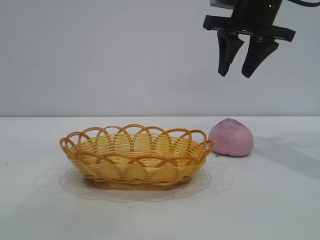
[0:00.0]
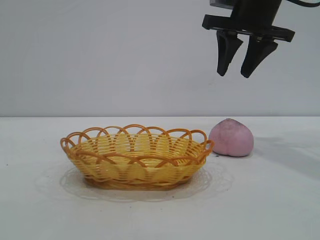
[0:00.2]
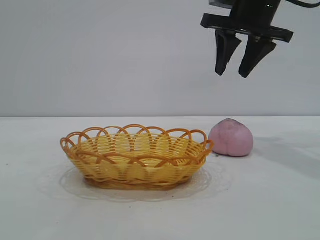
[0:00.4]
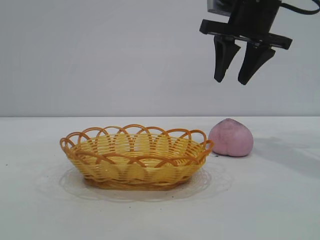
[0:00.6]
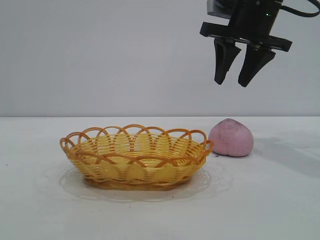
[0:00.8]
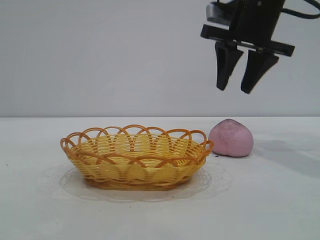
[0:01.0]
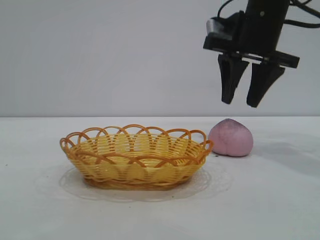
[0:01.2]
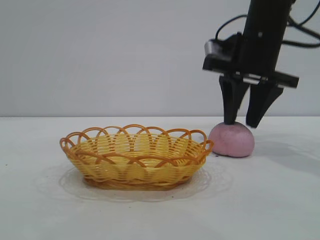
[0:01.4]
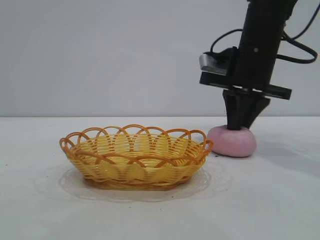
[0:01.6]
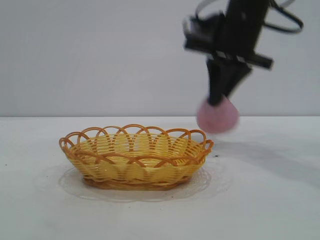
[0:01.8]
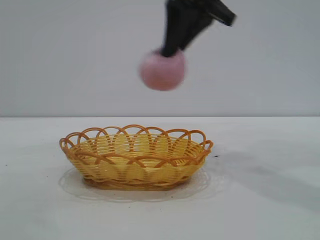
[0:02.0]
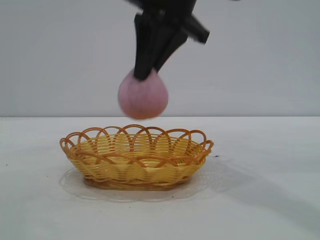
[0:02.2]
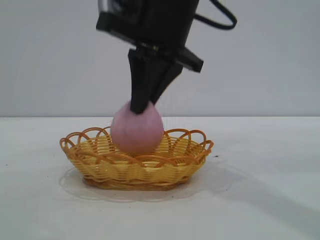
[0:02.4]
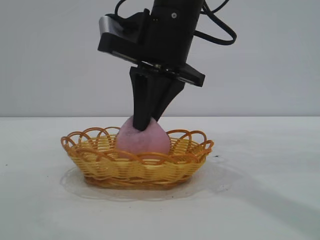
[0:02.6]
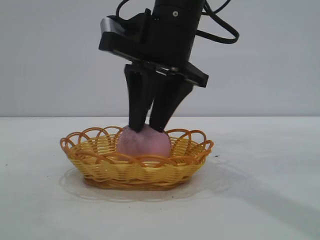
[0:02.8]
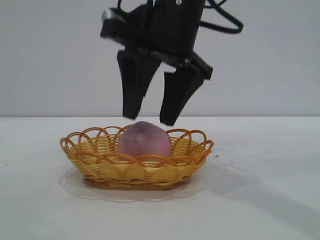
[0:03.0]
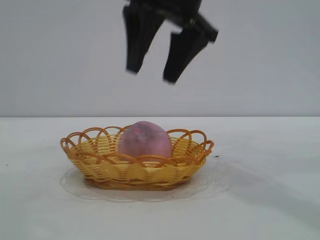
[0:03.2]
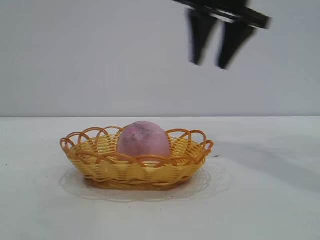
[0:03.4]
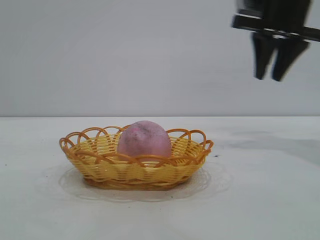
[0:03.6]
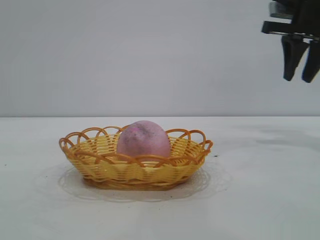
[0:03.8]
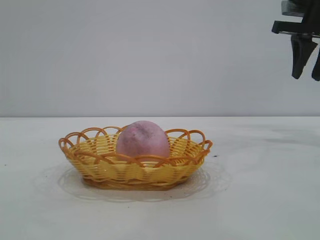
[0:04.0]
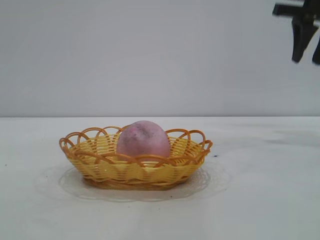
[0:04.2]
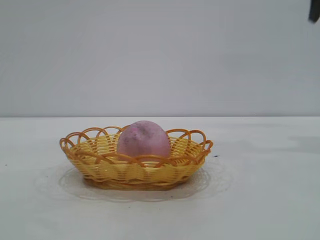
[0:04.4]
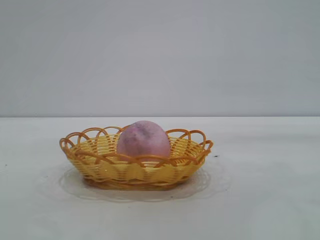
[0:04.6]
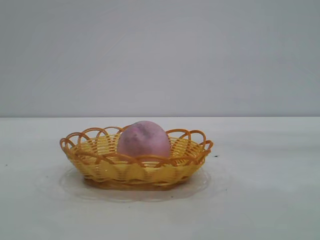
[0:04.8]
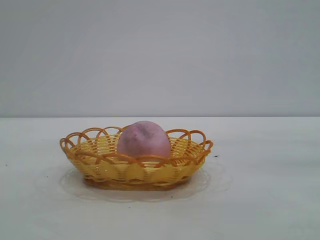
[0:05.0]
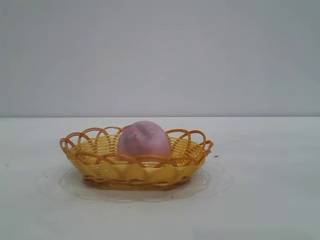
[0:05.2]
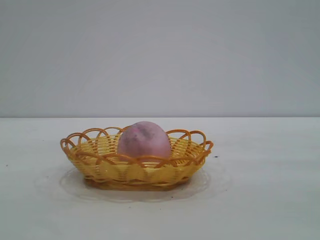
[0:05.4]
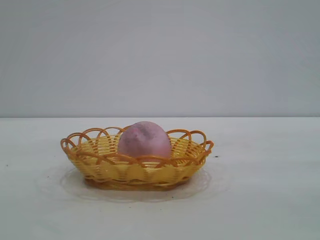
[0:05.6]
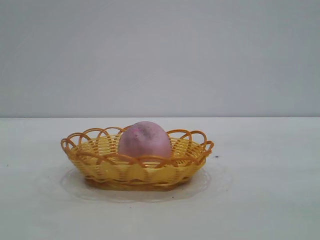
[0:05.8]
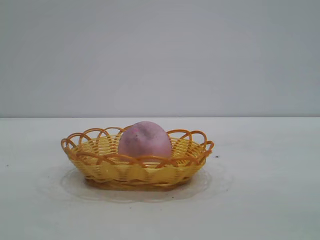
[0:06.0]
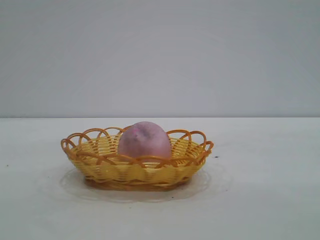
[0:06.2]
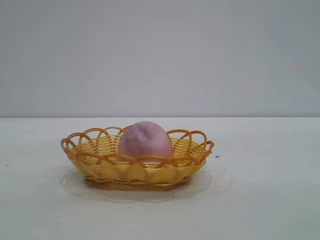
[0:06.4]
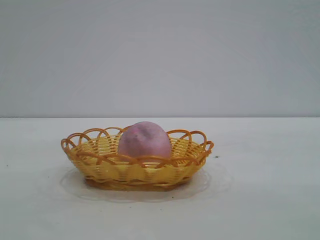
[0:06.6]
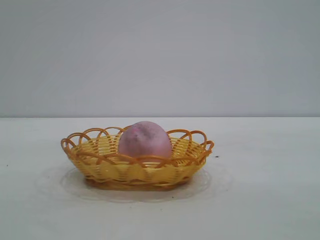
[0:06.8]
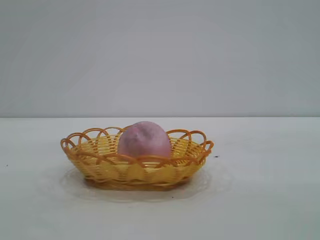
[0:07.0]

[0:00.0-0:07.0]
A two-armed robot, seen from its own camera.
Task of the whole recording: pick up the peach and put it into the basket.
Step, 0:00.0 to 0:01.6: Pick up the peach.
Step, 0:02.0 to 0:03.0: place the peach into the basket.

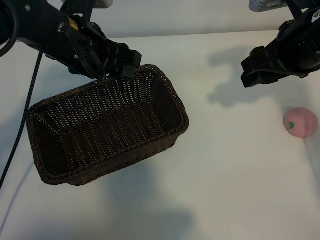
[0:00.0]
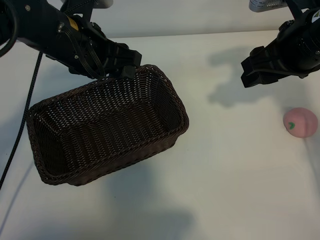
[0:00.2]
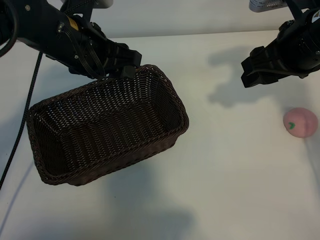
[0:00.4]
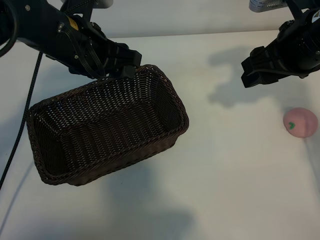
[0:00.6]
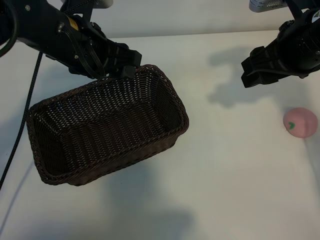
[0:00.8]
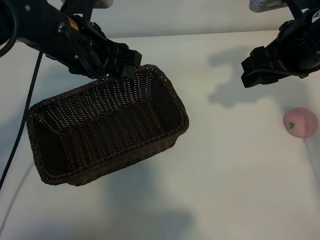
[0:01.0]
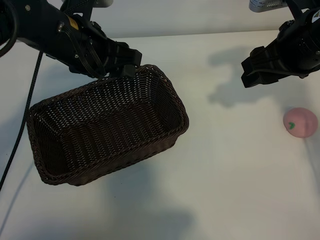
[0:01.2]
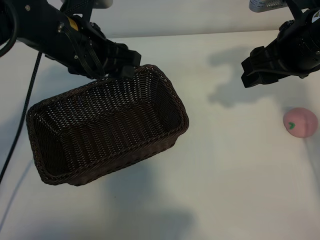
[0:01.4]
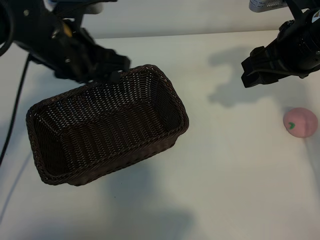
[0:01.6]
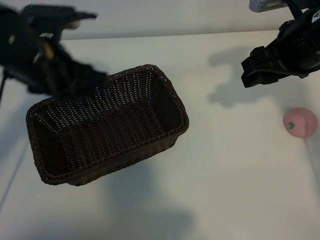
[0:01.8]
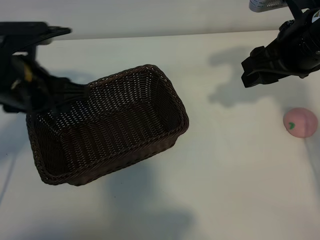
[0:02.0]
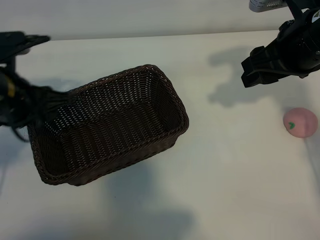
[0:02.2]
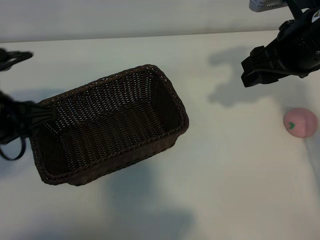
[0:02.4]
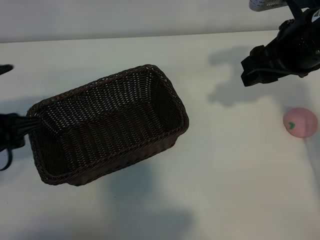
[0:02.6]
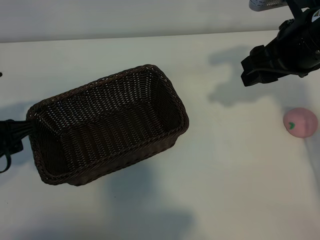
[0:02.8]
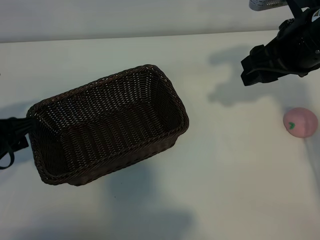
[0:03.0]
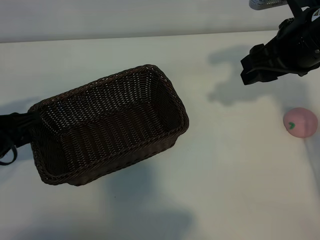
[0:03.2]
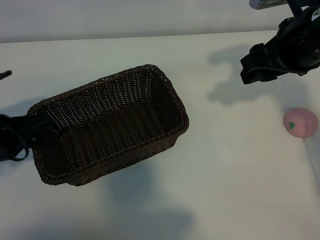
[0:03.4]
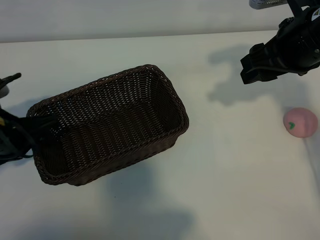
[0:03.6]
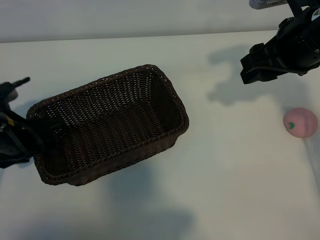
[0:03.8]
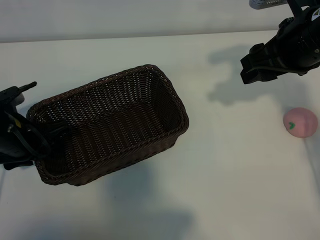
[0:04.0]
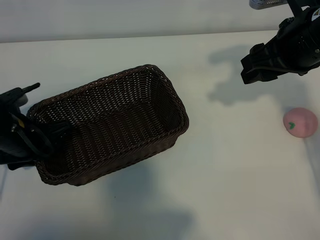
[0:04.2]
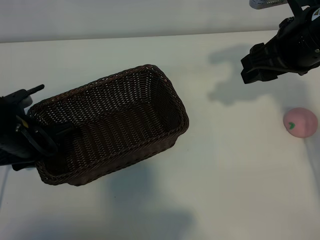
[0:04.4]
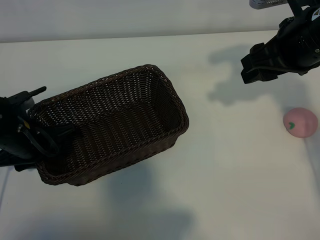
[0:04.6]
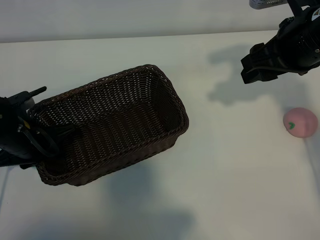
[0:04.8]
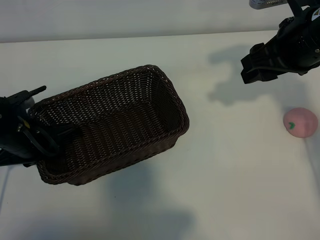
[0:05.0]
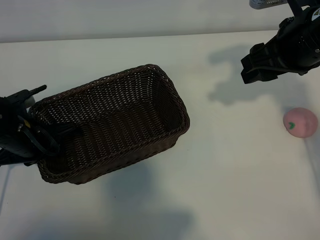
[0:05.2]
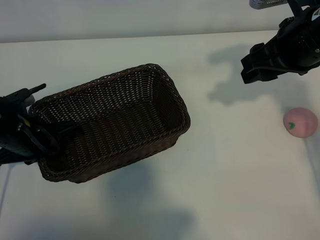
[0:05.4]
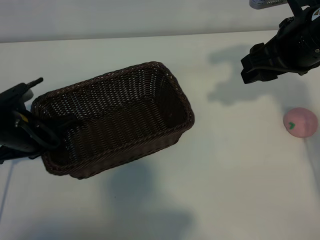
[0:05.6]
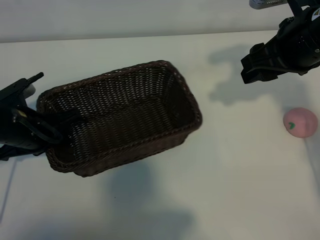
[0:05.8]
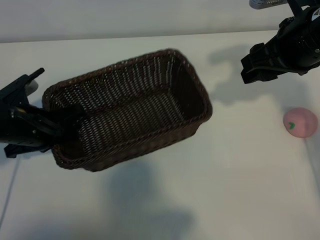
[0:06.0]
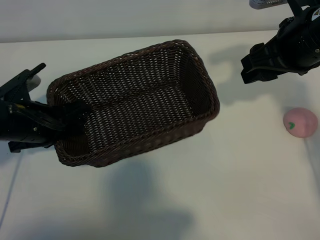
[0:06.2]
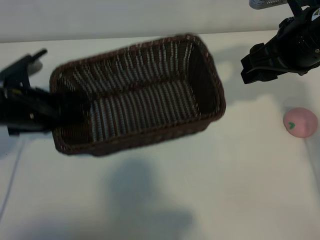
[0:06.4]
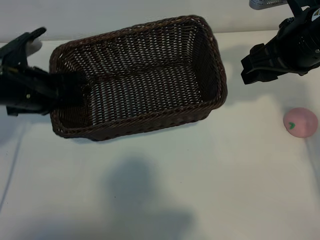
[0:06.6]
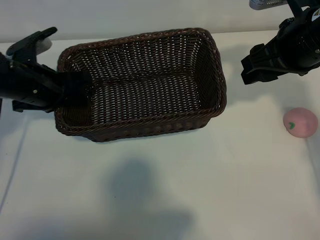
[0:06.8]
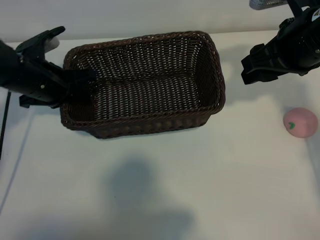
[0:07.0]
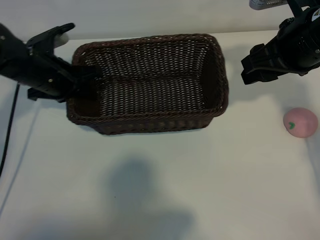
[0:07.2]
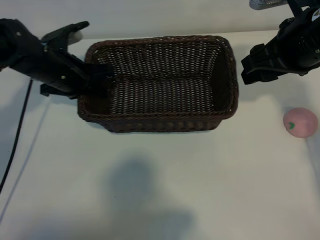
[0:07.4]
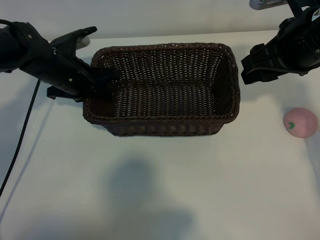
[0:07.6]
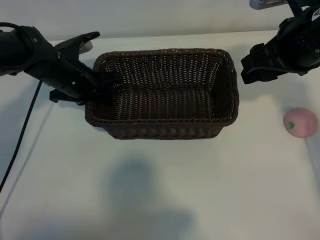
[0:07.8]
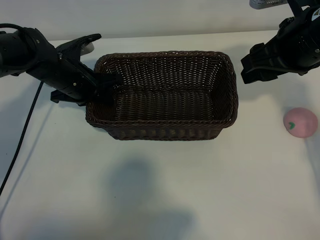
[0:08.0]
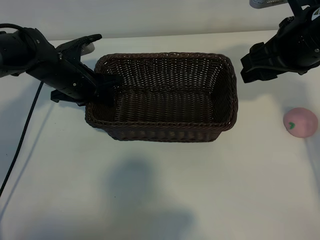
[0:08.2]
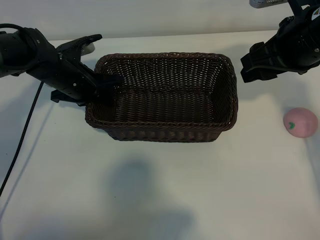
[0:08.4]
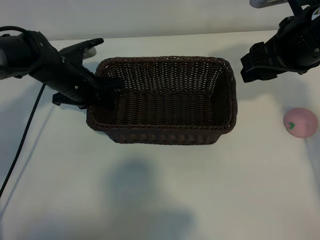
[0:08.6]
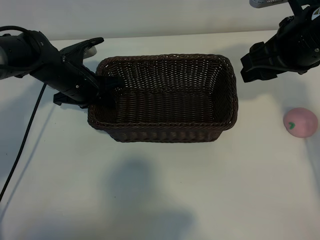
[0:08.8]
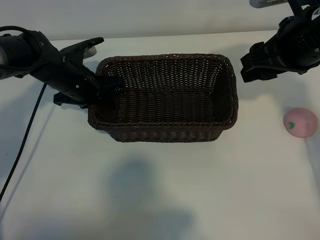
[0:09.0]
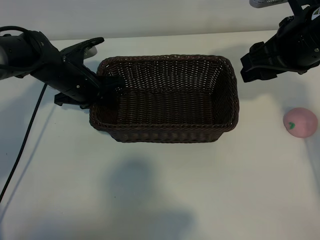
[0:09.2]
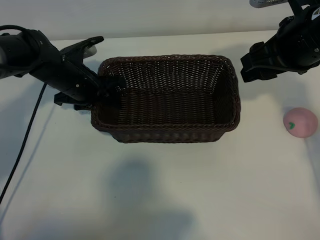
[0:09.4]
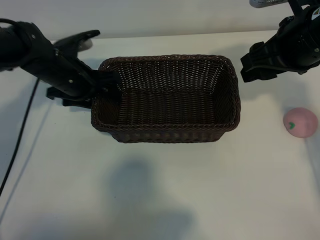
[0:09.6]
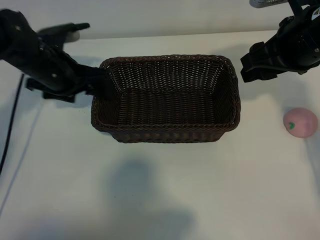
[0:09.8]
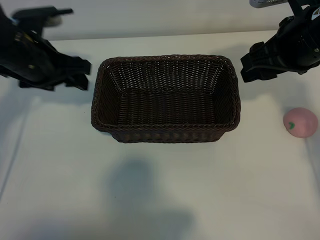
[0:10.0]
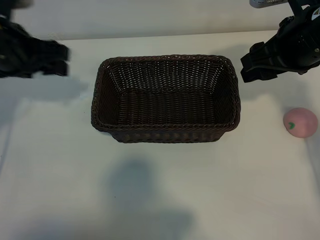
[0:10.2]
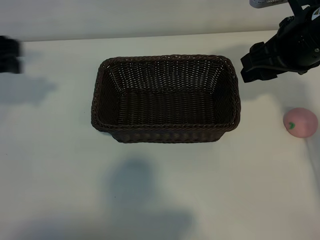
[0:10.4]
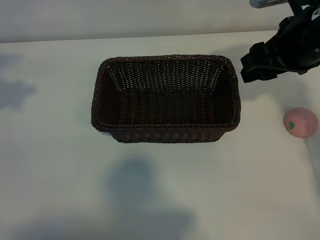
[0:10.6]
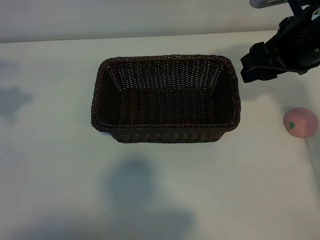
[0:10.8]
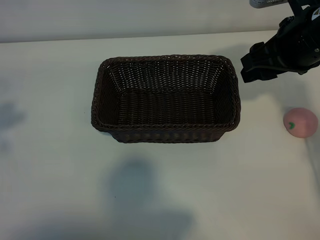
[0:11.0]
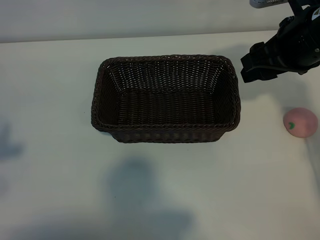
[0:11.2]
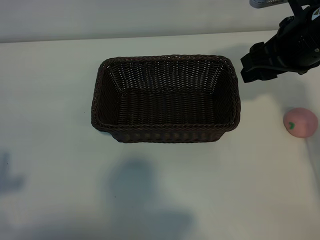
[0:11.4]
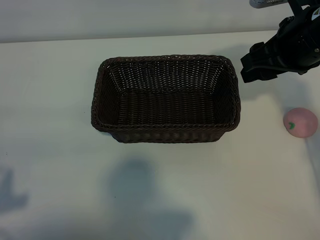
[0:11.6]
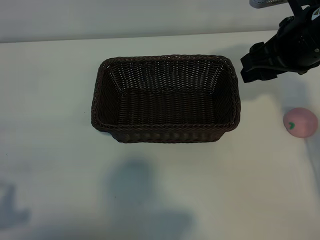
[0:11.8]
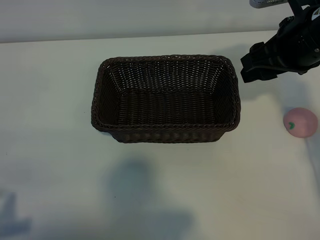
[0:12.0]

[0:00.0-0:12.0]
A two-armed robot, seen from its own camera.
Task of the whole recording: pick up the peach and put it into the basket.
Step, 0:01.2 to 0:05.4: Grasp the basket with left gripper.
Step, 0:05.6 to 0:09.6: Place the basket in the center of view with left gripper.

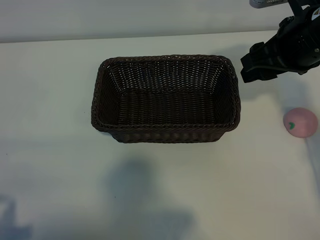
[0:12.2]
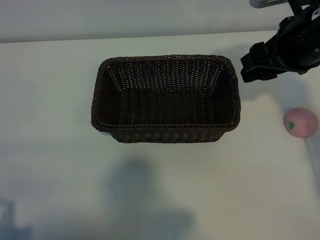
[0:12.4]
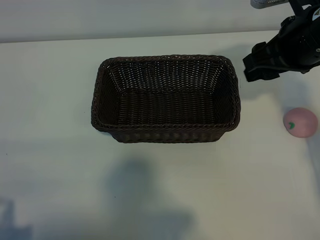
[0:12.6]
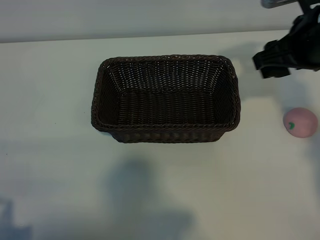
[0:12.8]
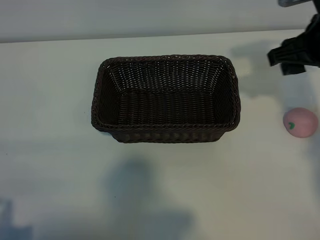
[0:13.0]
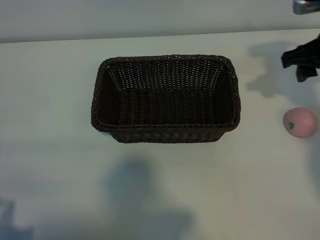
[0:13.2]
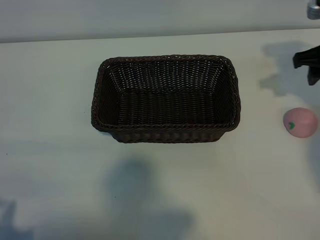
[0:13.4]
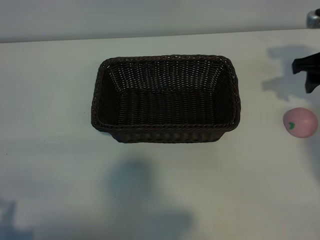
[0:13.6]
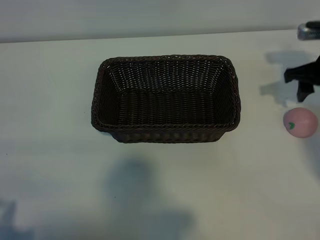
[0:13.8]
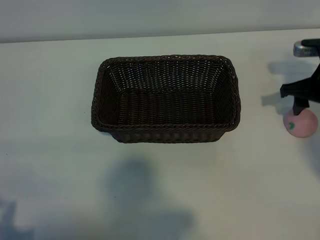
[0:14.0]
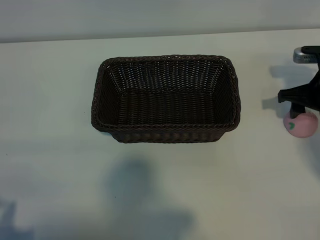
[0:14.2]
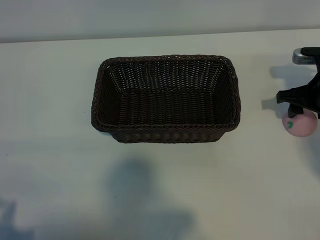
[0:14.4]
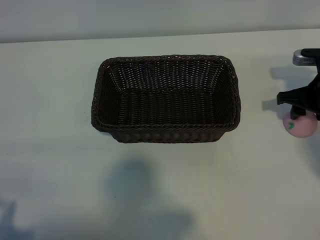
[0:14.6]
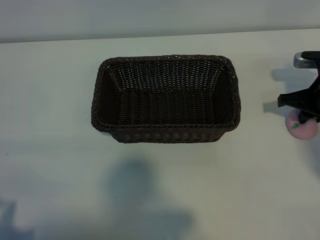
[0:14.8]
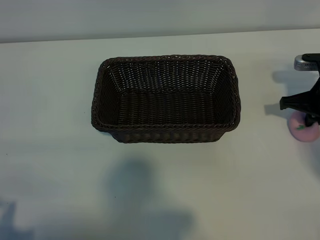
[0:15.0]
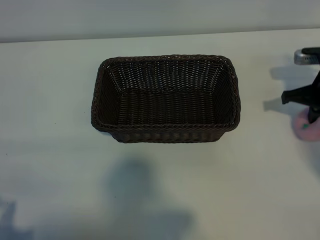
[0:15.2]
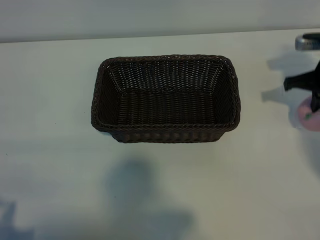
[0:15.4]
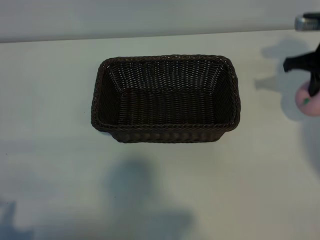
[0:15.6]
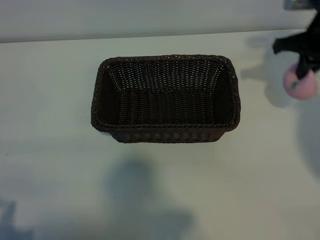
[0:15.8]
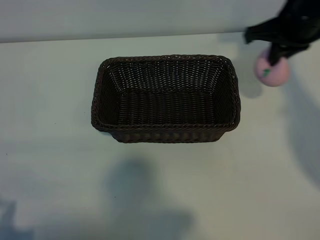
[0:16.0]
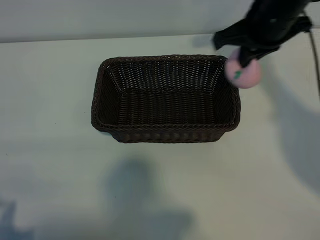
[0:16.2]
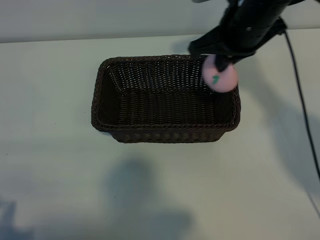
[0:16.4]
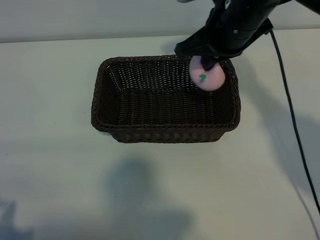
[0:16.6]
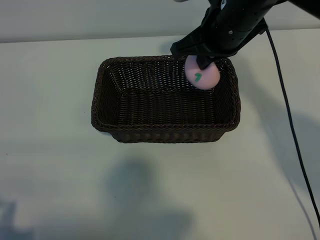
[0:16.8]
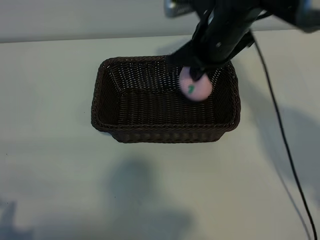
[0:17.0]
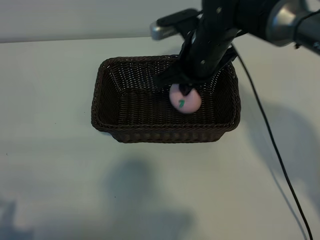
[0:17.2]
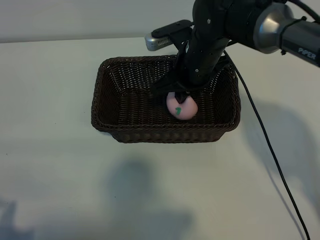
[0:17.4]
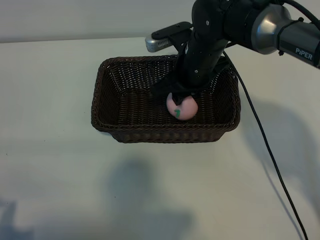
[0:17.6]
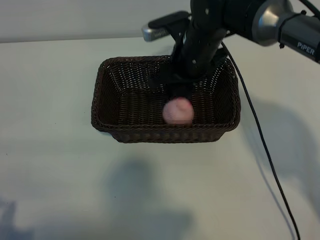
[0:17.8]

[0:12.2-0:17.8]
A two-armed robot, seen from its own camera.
Task of the whole recording: pick up the peach and put it into the basket.
Step, 0:12.2 to 0:15.0: Grasp the peach with right gripper.
